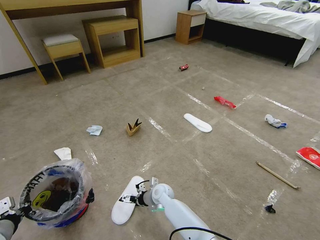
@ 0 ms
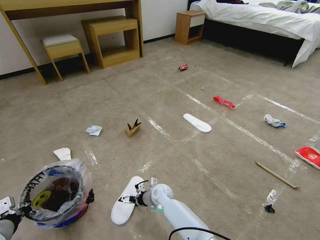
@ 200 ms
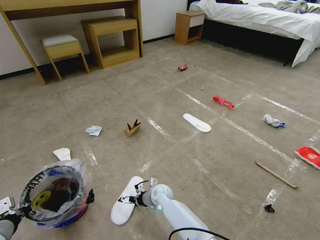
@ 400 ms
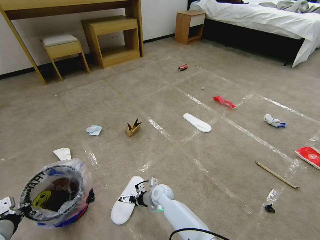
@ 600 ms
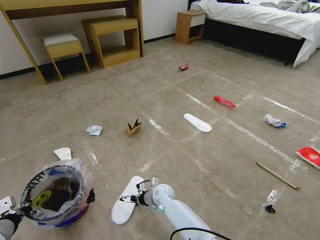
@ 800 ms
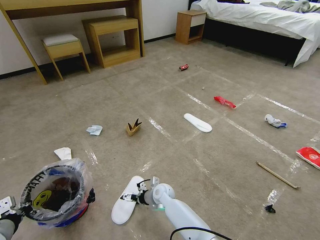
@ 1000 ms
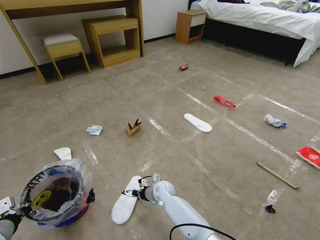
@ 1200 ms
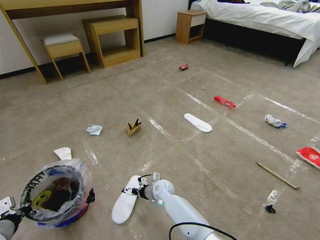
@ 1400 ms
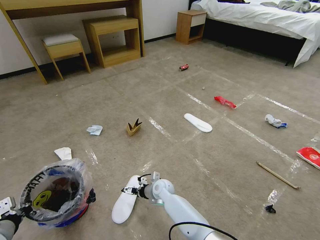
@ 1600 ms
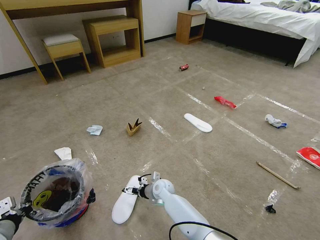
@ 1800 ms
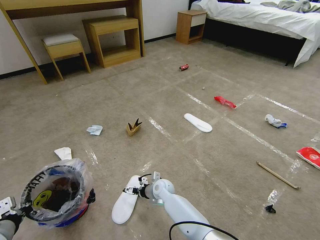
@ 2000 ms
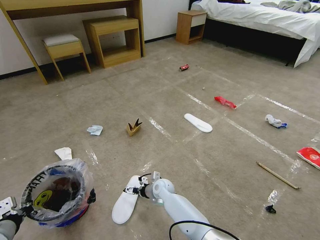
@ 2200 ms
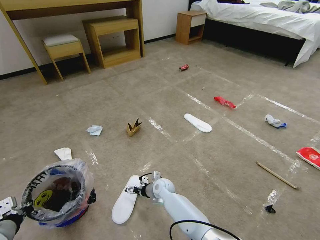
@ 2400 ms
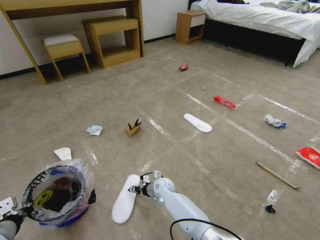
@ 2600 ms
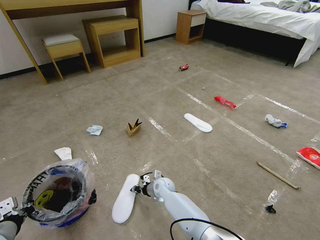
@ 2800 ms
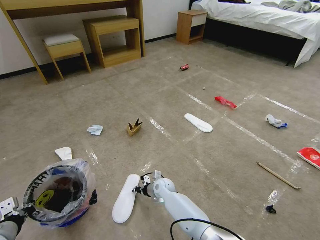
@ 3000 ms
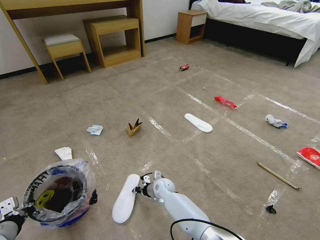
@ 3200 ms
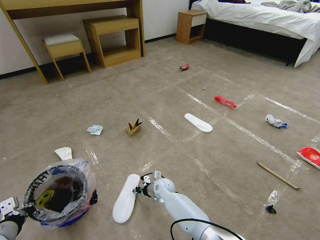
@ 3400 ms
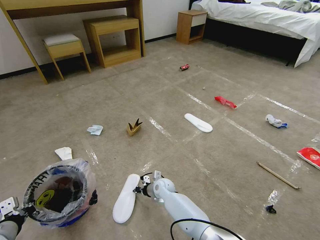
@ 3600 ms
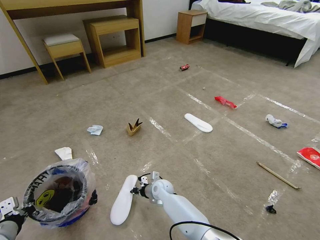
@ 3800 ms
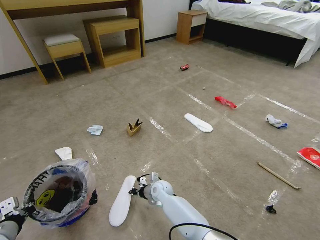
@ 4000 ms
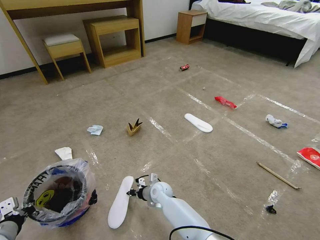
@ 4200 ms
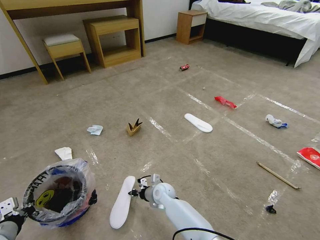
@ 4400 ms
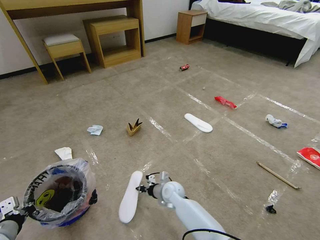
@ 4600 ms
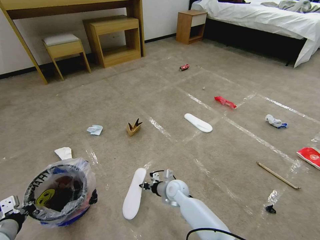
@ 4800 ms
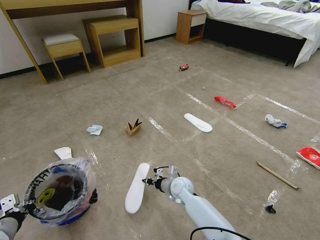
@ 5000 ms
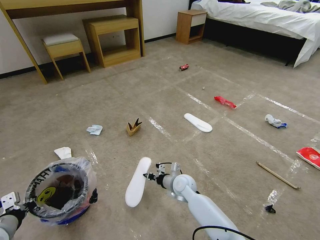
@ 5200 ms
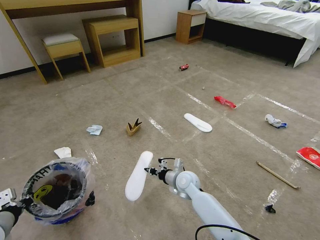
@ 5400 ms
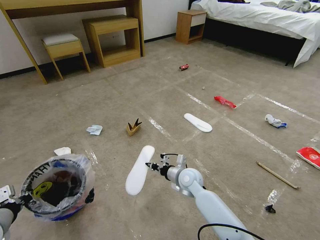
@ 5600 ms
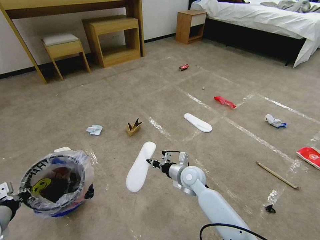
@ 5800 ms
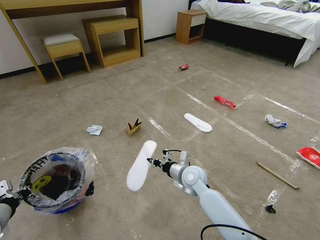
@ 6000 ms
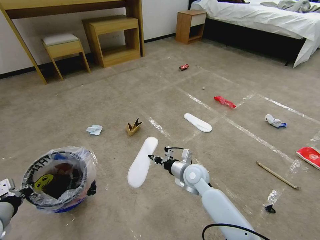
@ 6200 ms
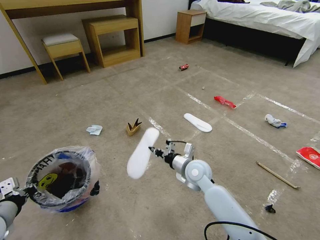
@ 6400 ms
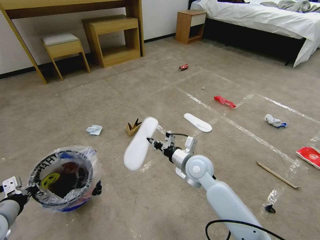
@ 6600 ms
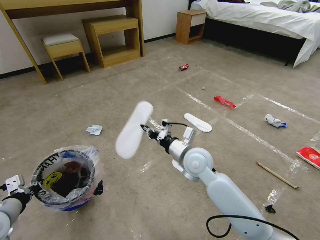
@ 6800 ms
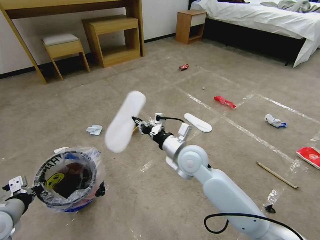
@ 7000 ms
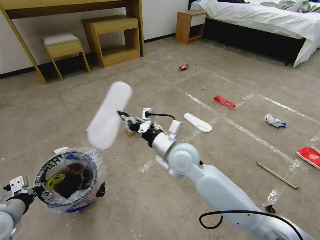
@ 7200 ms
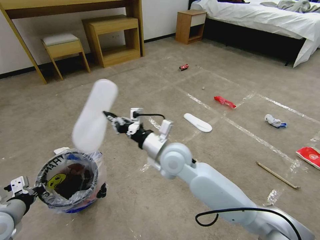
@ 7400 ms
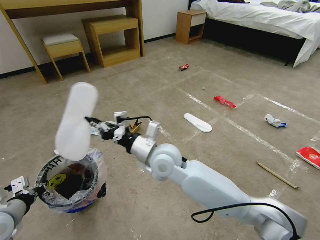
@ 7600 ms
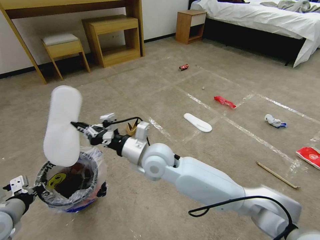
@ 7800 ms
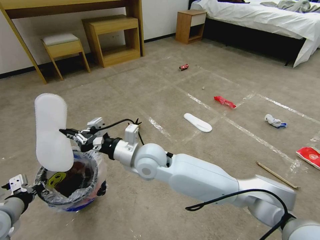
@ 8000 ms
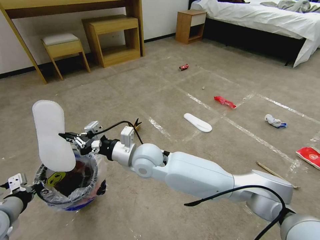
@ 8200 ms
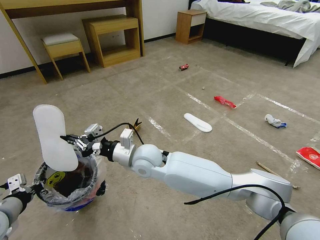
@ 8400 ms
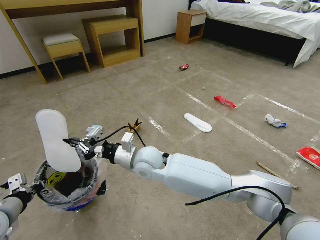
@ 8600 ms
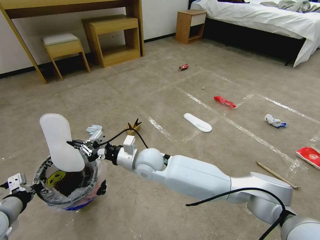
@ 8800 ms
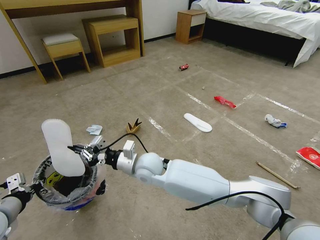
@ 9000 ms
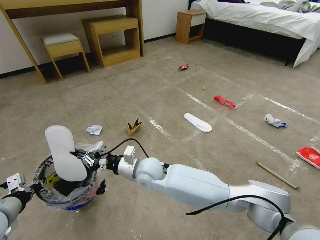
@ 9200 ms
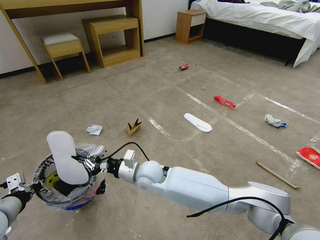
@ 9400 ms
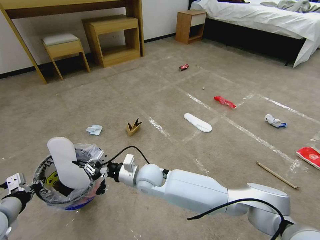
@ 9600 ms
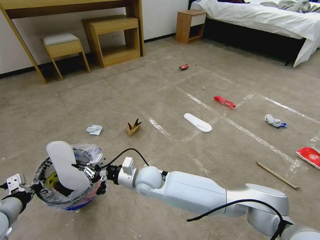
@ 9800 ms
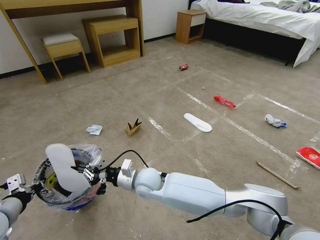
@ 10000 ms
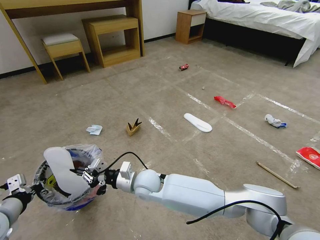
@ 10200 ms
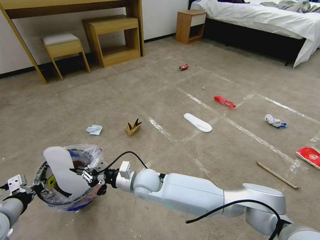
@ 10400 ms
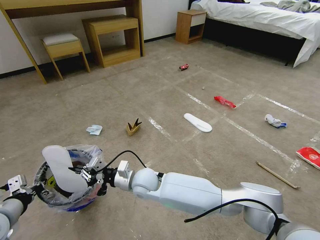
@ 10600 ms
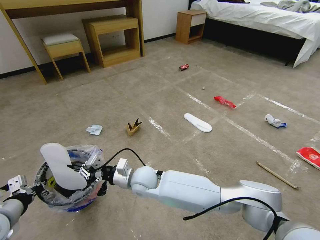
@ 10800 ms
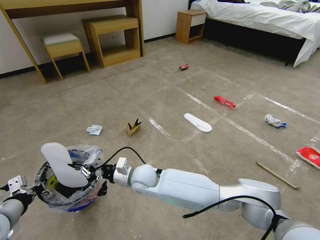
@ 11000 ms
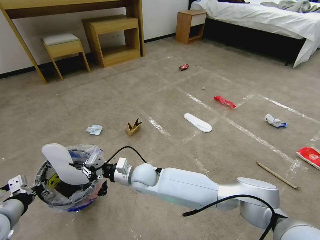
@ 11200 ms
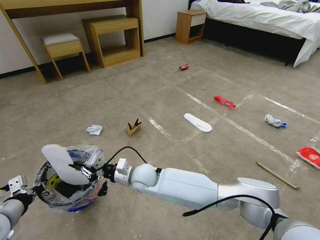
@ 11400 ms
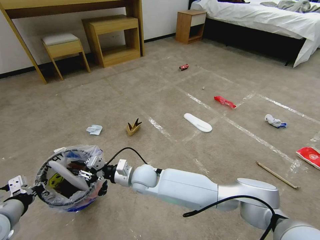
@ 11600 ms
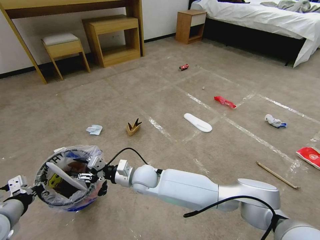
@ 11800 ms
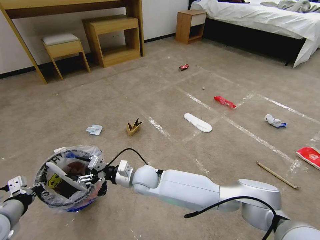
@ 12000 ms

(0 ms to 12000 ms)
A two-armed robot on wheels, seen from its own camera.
Task of the whole recording: Pick up the trash bin and place the garbage on the floor into it.
0 ms - 1600 ms: There are only small adjustments of the grippers.
1600 ms - 3000 ms: The right gripper closes.
3000 ms - 4400 ms: The grippers move only a little.
4400 ms - 6000 ms: The right gripper shifts some 15 cm upward and to the right. The left gripper changes place by roughly 5 cm.
6000 ms - 7600 ms: The right gripper heads upward and to the left, covering some 20 cm.
7600 ms - 9000 ms: The right gripper goes roughly 10 cm downward and to the left.
9000 ms - 10400 ms: The right gripper moves downward, roughly 5 cm.
10400 ms - 12000 ms: The right gripper opens its fingers.

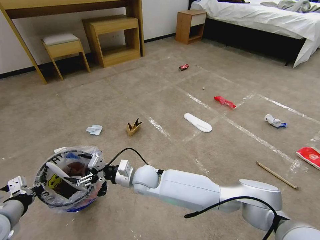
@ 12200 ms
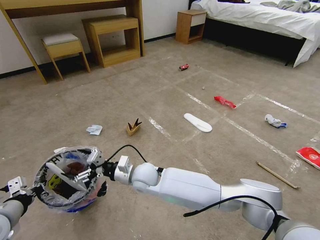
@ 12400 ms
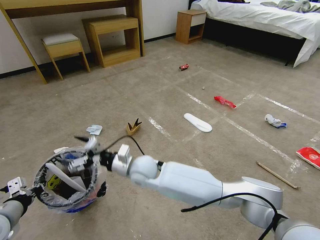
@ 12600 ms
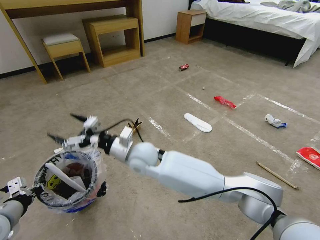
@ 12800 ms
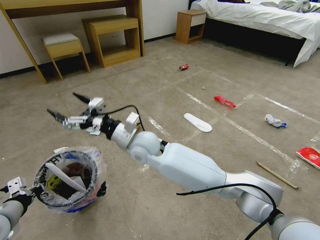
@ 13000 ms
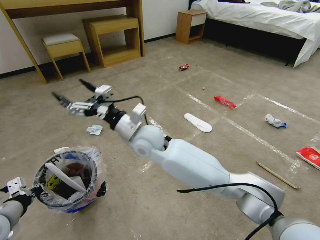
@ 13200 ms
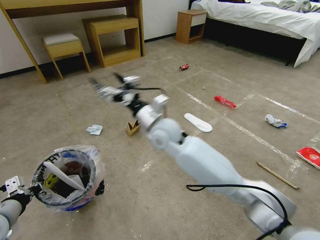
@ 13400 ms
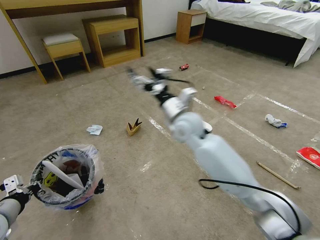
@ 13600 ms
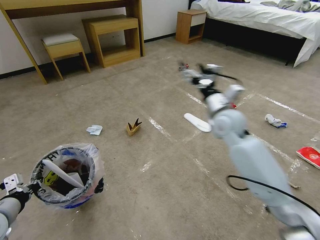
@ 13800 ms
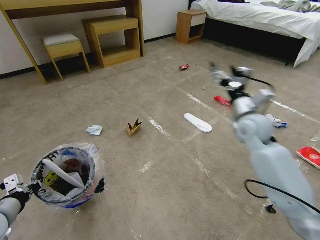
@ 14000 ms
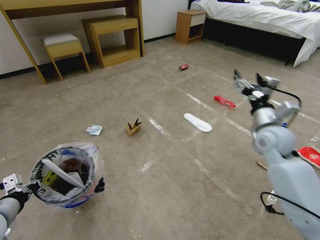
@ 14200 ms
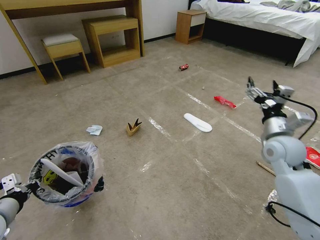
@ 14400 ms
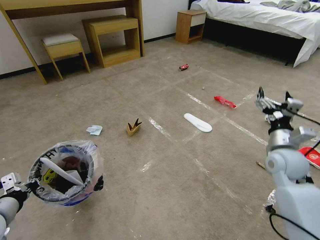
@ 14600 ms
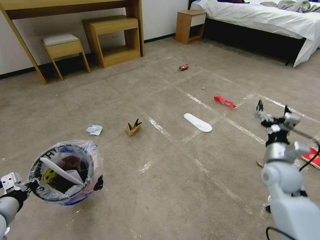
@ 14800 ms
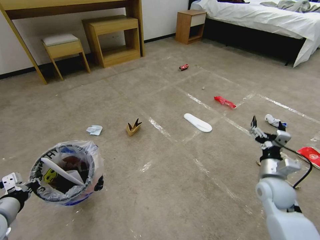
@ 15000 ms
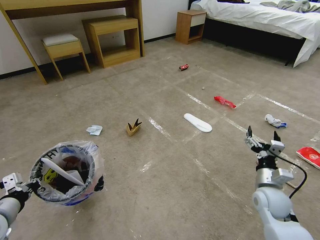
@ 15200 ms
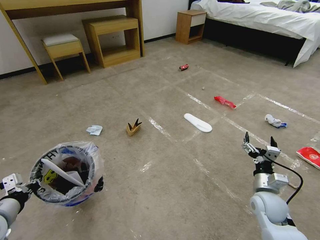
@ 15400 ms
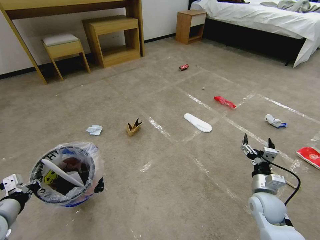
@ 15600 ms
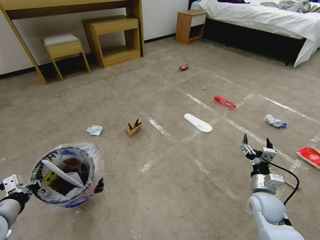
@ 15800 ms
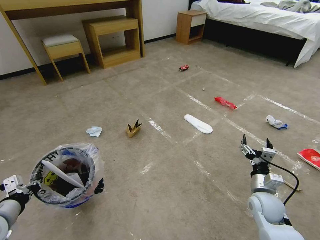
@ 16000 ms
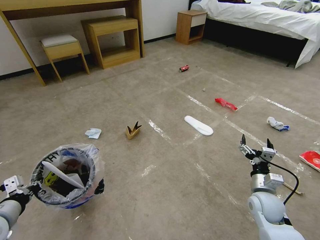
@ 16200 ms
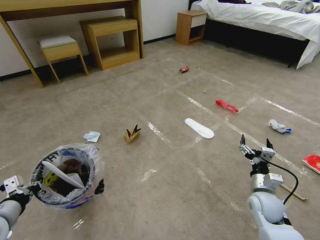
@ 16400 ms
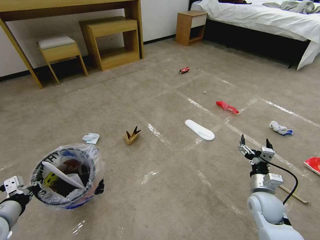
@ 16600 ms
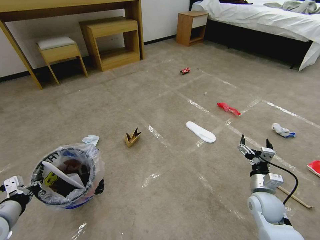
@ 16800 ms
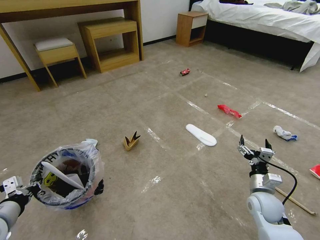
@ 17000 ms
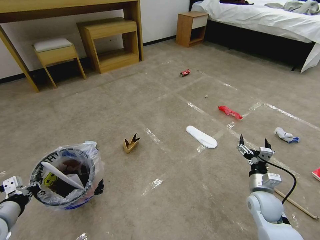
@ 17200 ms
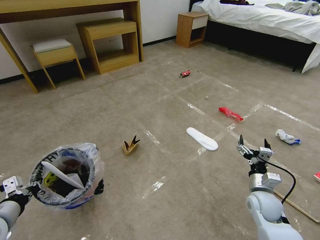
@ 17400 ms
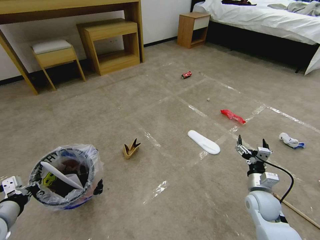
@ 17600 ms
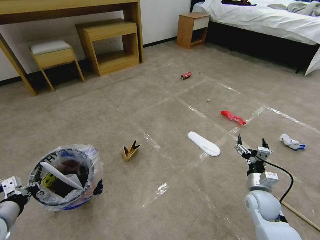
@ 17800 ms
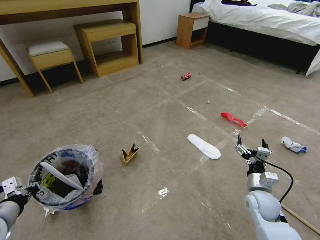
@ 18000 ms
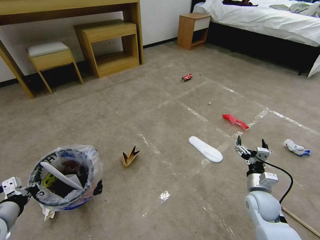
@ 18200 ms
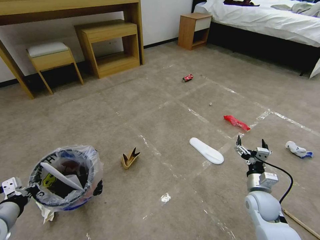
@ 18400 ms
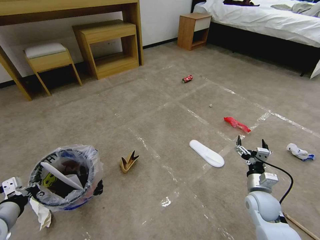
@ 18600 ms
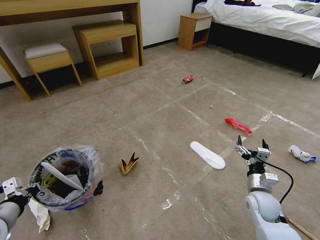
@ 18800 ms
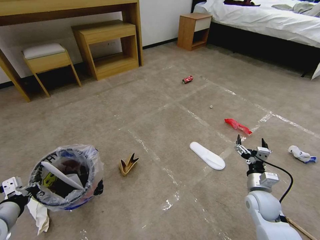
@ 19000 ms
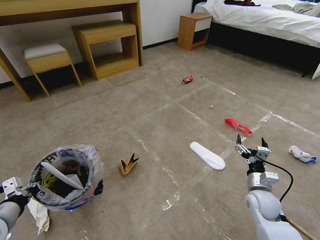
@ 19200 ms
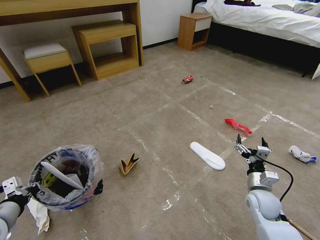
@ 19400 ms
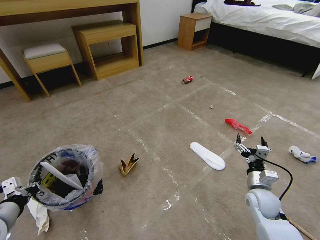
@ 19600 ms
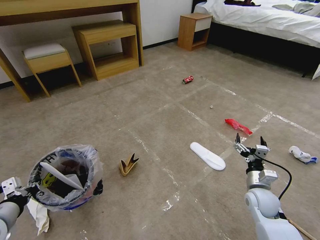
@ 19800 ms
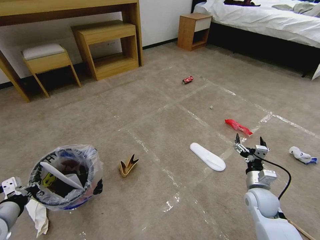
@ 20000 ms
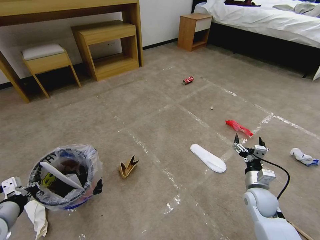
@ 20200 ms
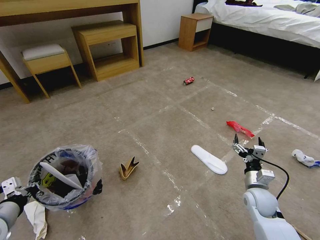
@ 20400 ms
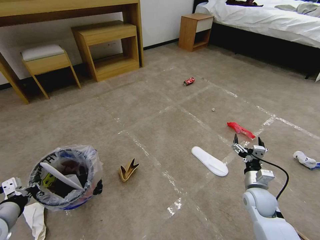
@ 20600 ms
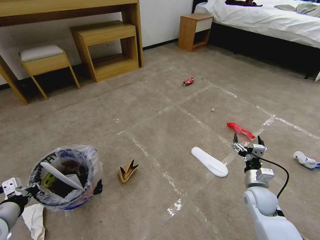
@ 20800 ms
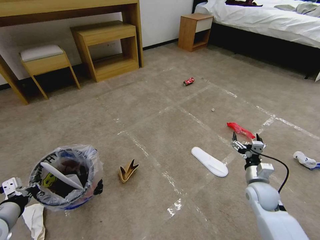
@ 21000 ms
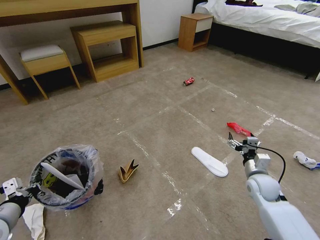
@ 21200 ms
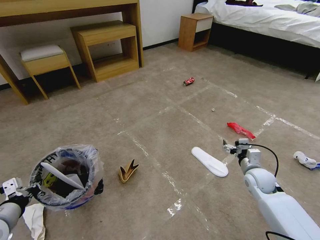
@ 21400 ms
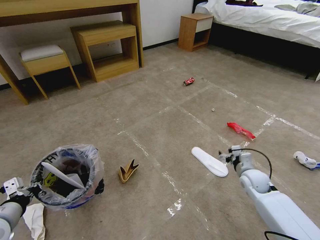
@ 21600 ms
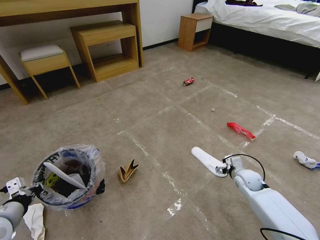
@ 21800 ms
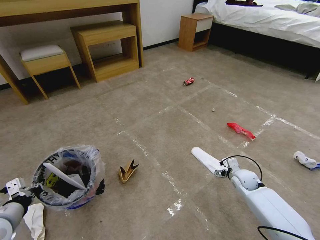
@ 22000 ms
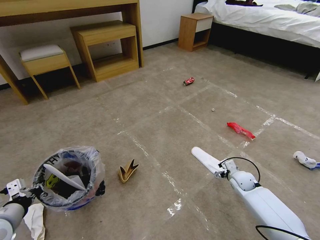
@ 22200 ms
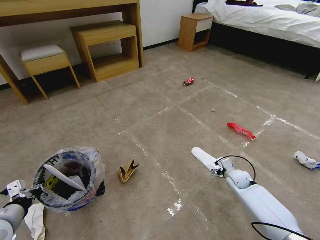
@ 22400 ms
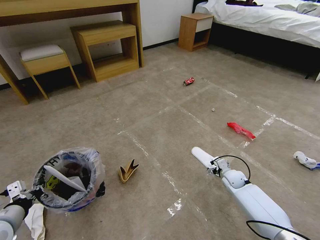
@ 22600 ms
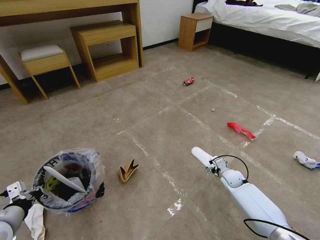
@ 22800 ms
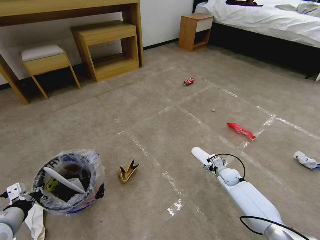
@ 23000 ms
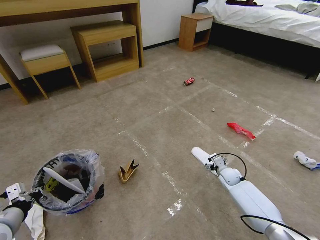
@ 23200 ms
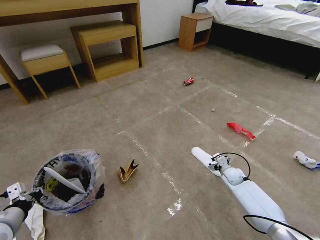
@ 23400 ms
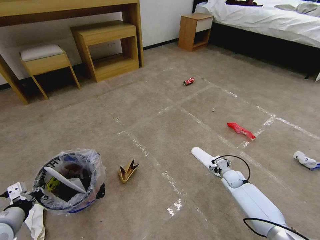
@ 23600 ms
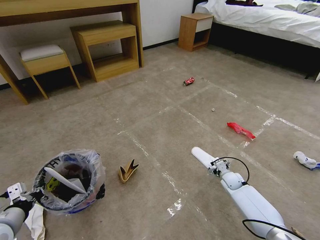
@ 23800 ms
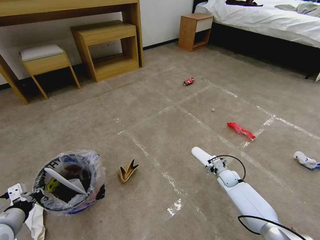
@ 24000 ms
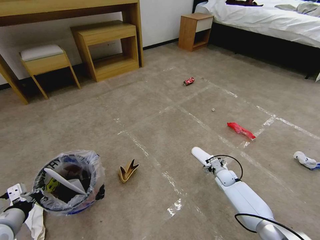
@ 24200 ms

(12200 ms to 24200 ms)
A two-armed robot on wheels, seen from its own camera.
Task of the whole recording: Pick up the trash bin and place the garbage on the floor into it.
12200 ms - 13800 ms: The right gripper heads to the right and upward, covering about 35 cm.
13800 ms - 15200 ms: The right gripper travels downward, backward and to the right by approximately 30 cm.
15200 ms - 16600 ms: There are only small adjustments of the grippers.
18200 ms - 19800 ms: Neither gripper changes place.
19800 ms - 21200 ms: The right gripper shifts by about 5 cm.
21200 ms - 22600 ms: The right gripper is displaced downward and forward by about 15 cm.
22600 ms - 24200 ms: There are only small adjustments of the grippers.
